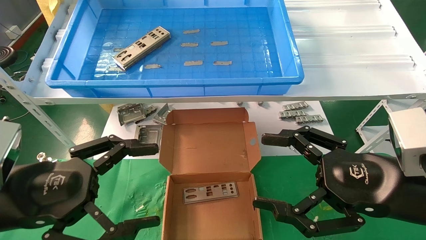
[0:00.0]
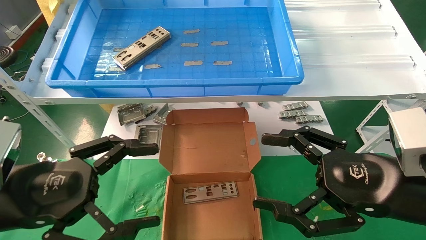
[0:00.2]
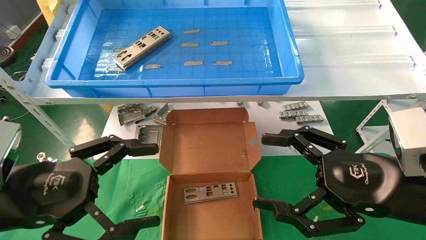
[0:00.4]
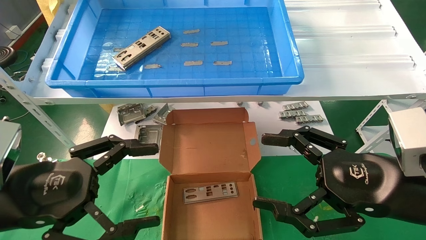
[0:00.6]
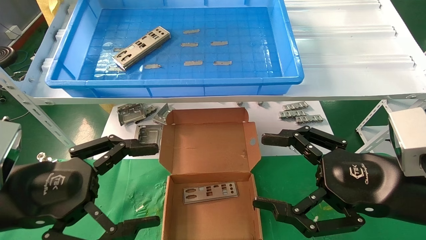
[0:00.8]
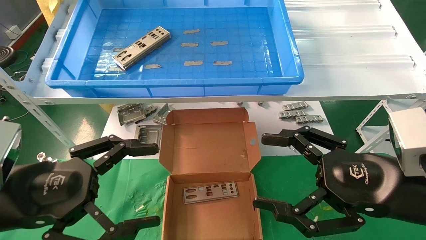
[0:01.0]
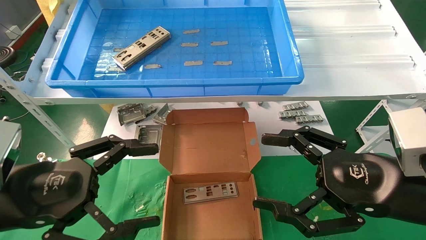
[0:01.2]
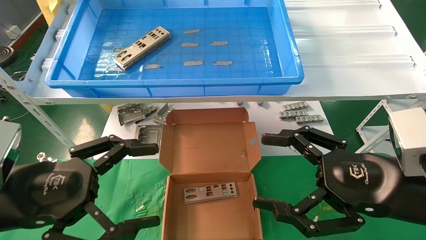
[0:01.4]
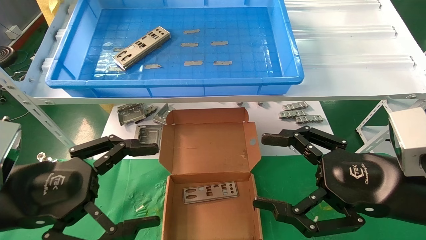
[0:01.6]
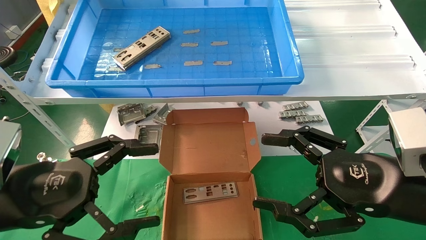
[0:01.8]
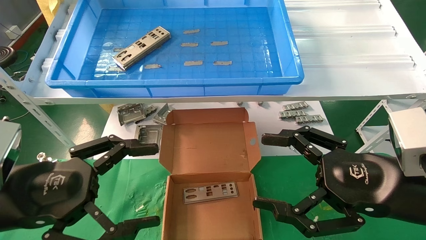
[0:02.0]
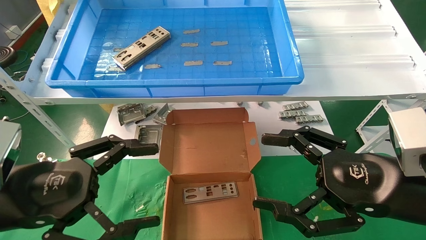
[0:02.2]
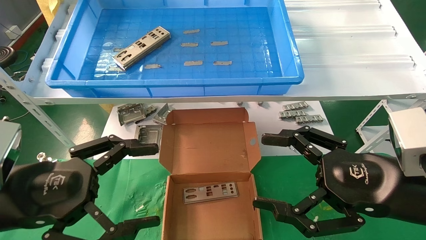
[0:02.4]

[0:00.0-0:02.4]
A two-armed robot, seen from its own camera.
Task of the whole recording: pick up the parts on the tray and put them in the cardboard box.
0:00.0 to 0:02.4: The two grippers keep their place.

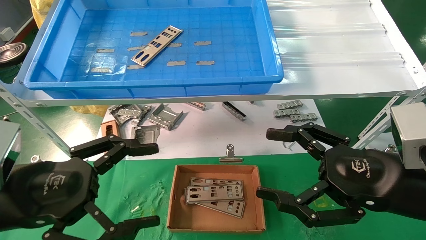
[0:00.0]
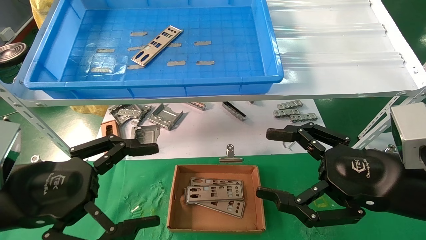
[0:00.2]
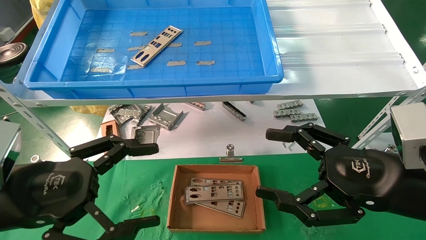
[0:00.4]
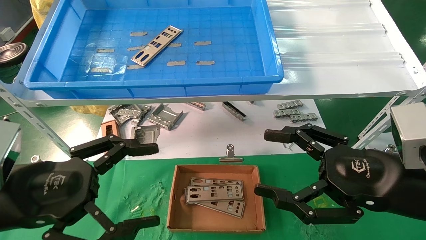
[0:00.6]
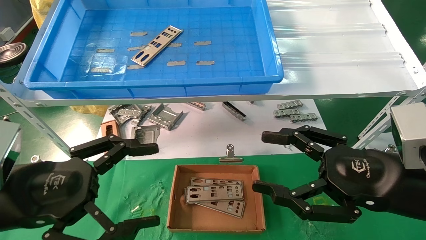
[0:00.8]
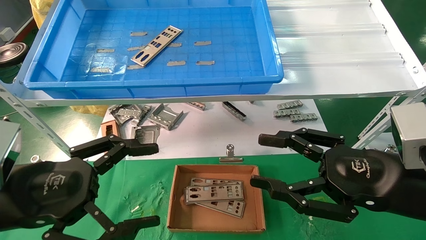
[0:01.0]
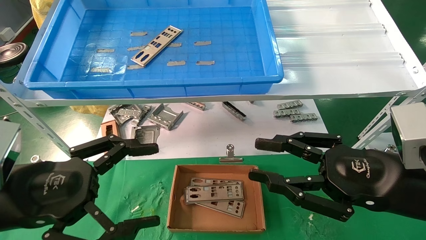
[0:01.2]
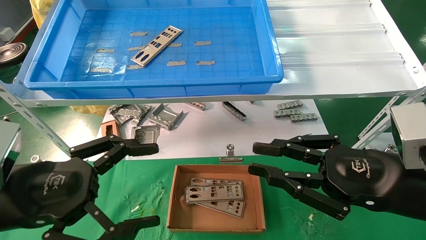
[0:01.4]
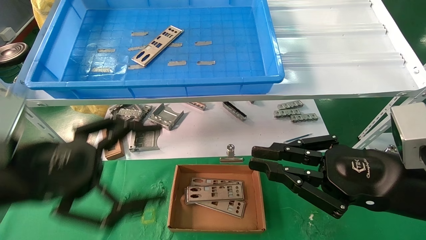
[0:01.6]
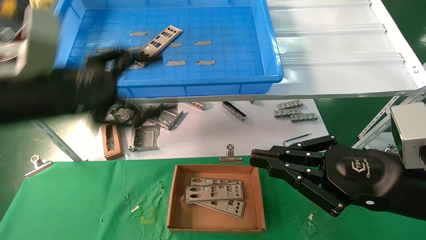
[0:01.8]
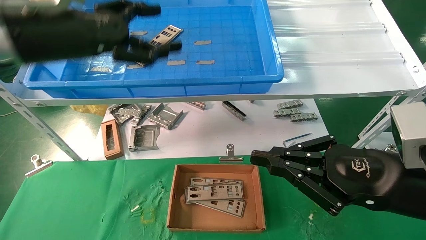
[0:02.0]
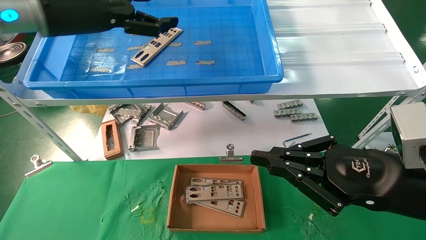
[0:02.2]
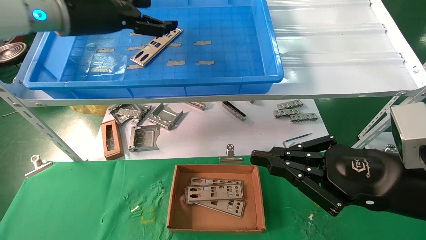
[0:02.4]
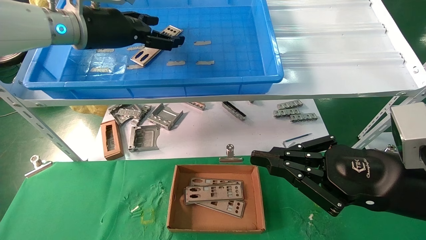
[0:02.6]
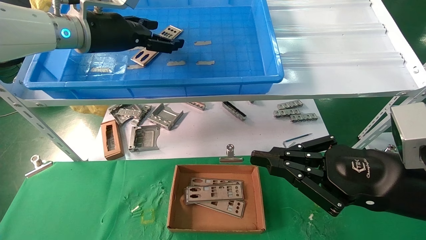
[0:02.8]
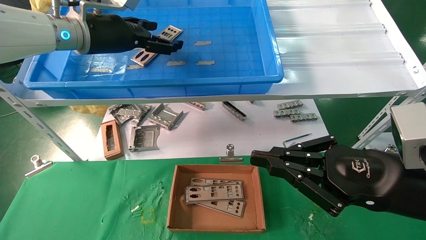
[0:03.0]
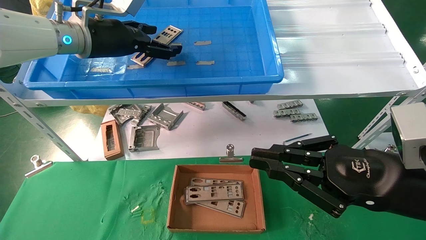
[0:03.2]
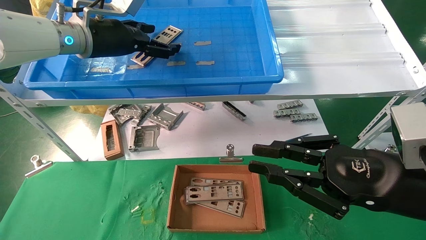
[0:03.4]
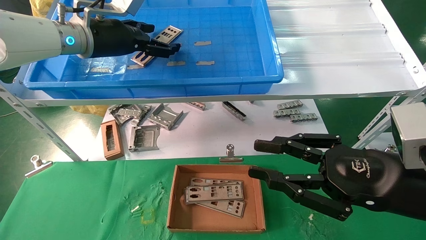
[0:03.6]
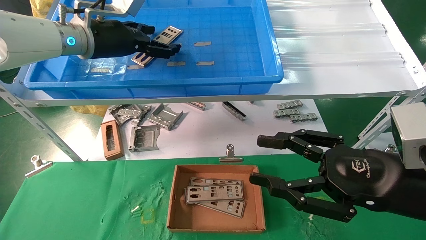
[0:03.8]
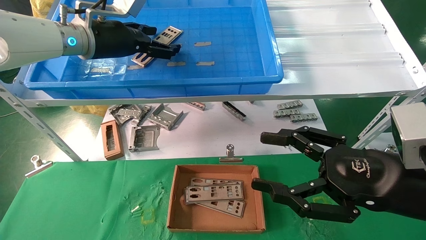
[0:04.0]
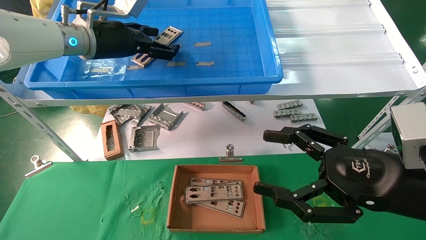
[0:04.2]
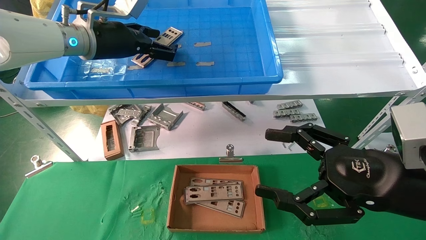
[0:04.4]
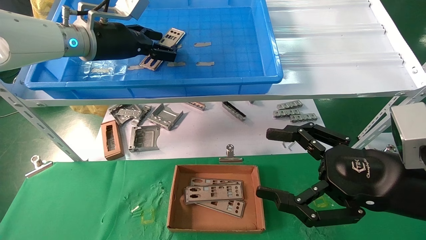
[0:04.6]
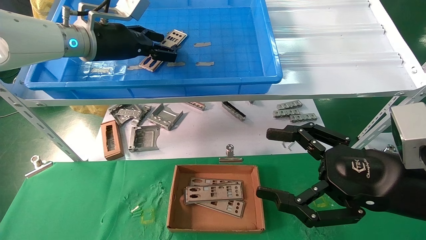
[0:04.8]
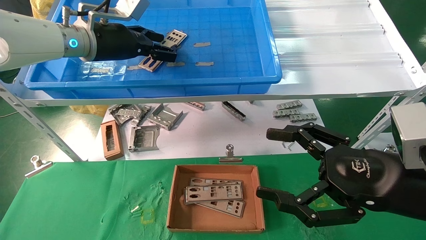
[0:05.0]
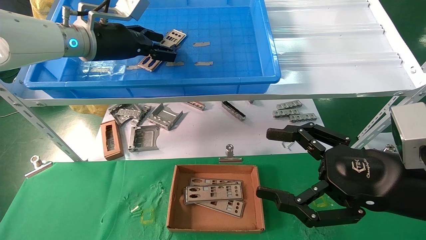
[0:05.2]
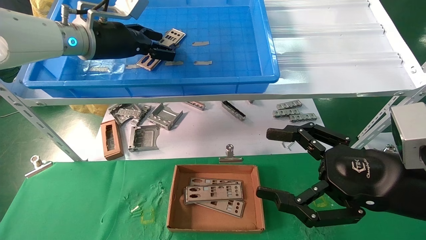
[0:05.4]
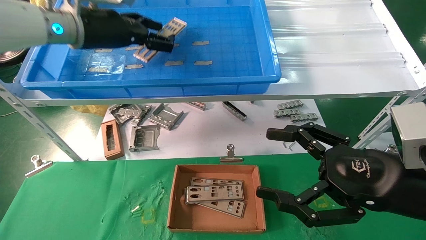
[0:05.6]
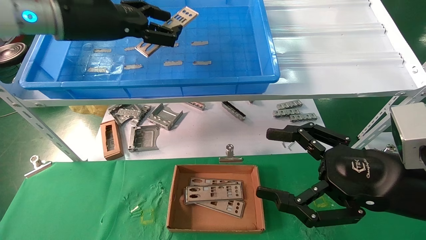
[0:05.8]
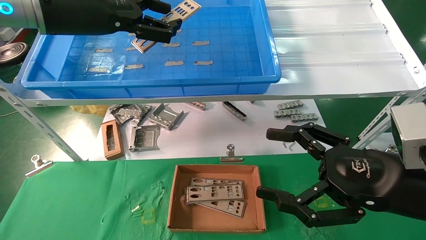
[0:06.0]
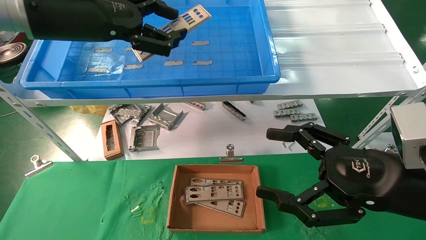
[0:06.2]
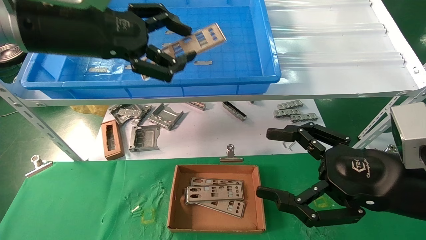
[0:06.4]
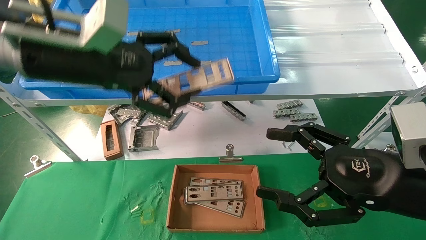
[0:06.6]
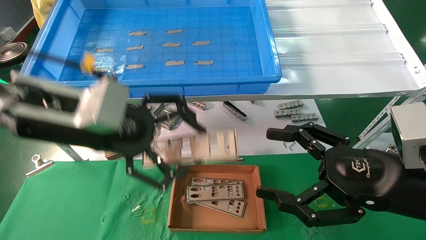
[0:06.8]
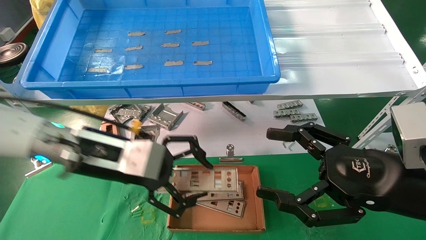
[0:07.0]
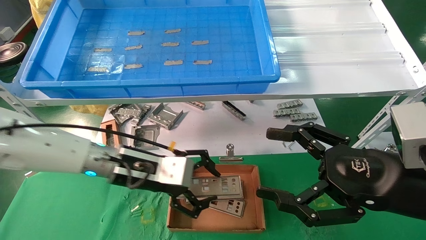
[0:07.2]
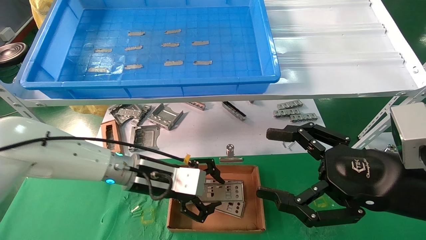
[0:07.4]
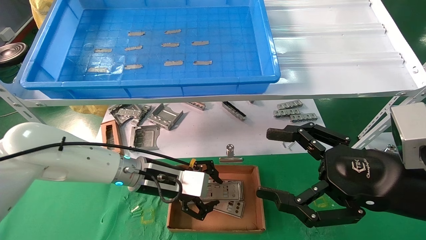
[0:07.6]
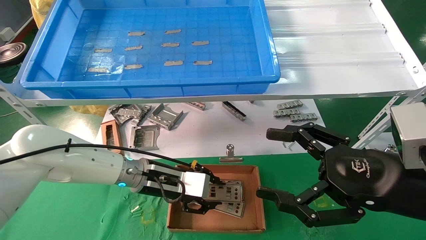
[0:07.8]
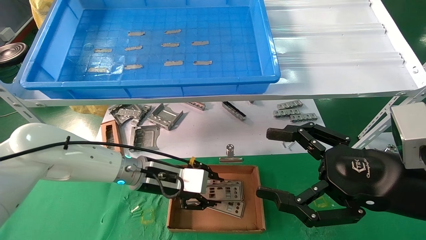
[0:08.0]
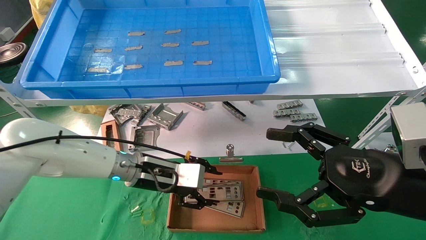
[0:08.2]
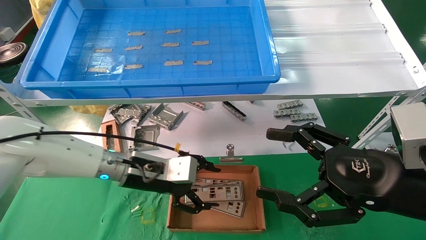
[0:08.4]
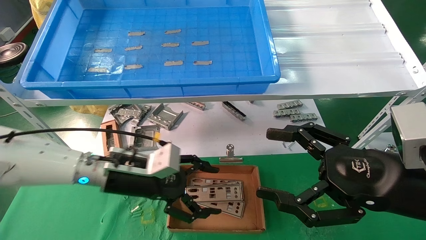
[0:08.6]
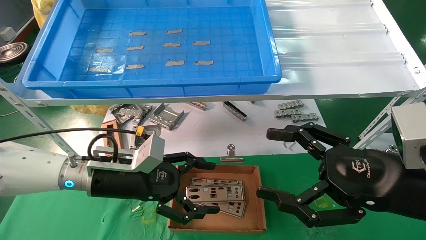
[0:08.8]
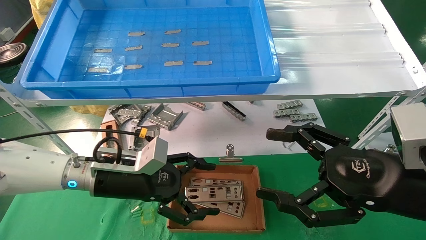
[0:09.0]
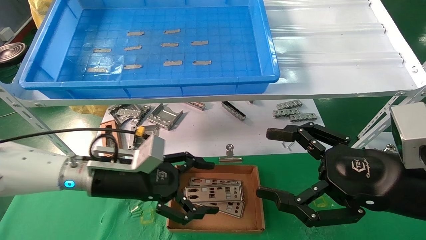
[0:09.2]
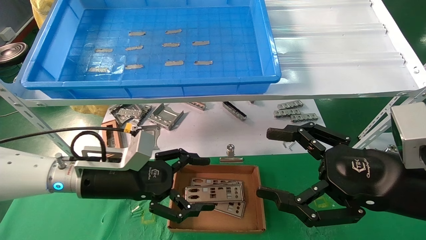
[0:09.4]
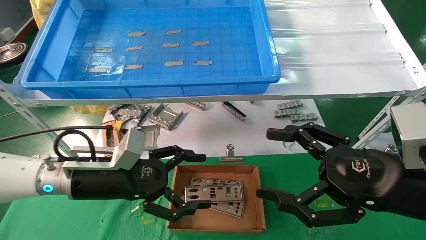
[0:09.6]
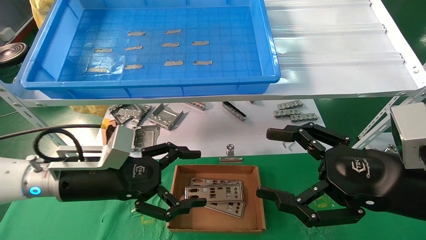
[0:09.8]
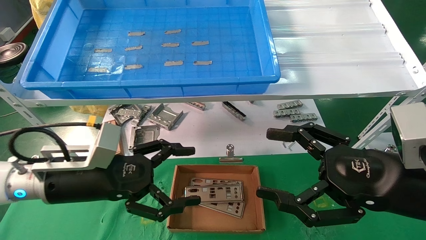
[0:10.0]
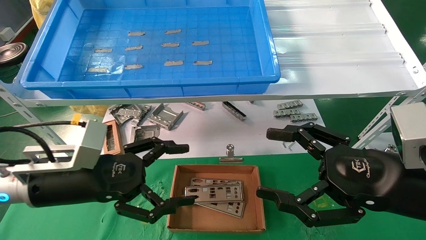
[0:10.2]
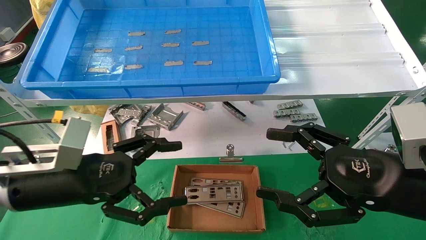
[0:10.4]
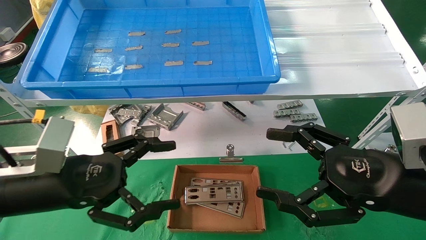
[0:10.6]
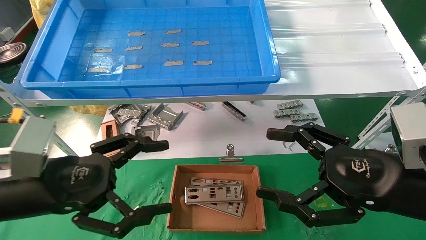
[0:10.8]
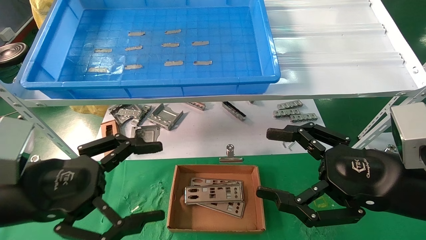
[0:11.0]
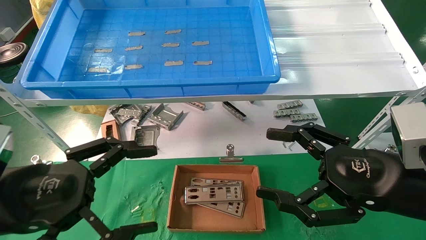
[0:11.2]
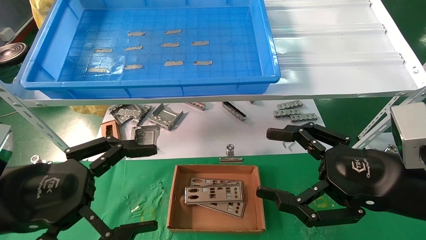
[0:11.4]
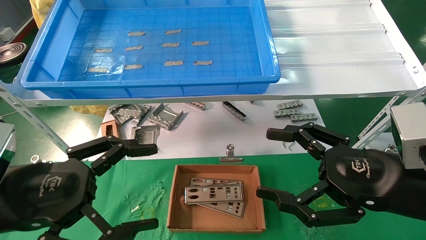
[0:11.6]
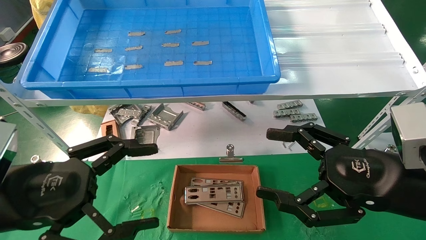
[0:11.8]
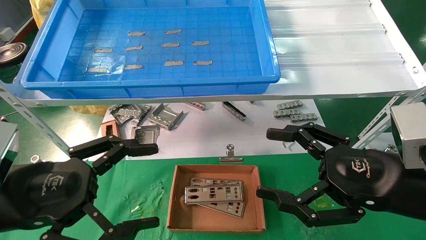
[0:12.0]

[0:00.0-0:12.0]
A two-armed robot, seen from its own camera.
Task of the whole recording: pick up the parts on the tray and put them in the cardboard box.
Step, 0:01.8 to 0:04.8: Pick up the IO bracket from the container box.
Step, 0:05.0 to 0:08.0: Place the IO bracket into the ingredient slot.
0:00.0 to 0:01.6: The left gripper shifts approximately 5 cm upward; the right gripper closes up.
0:01.6 to 0:03.0: The left gripper heads forward and upward, covering approximately 25 cm.
0:03.0 to 0:04.4: The right gripper opens its fingers.
0:04.4 to 0:06.0: The left gripper is displaced backward by roughly 10 cm, and closes its fingers.
0:06.0 to 0:07.6: The left gripper moves downward, approximately 30 cm.
0:07.6 to 0:09.0: The left gripper goes about 5 cm to the left, and opens up.
0:09.0 to 0:10.4: The left gripper shifts some 10 cm backward and to the left.
0:10.4 to 0:12.0: The left gripper heads backward, covering approximately 5 cm.

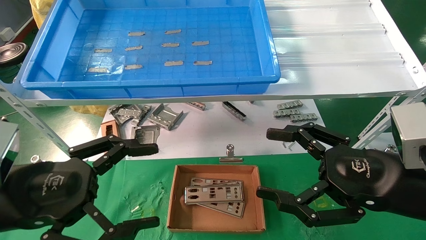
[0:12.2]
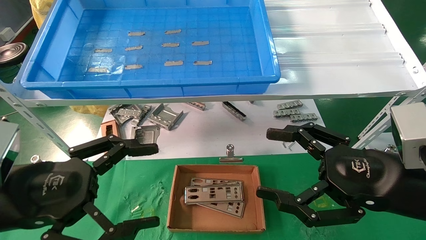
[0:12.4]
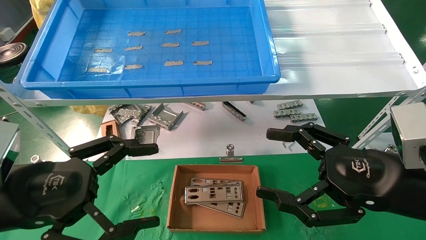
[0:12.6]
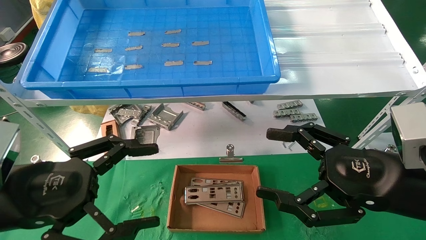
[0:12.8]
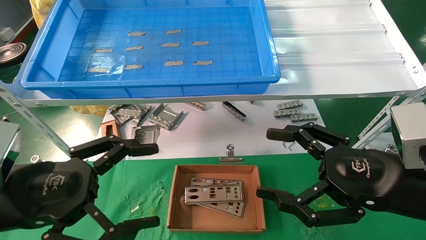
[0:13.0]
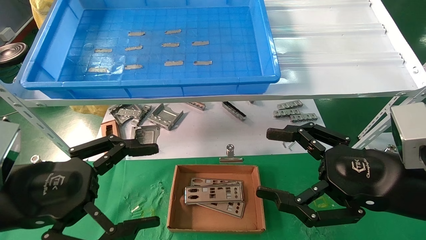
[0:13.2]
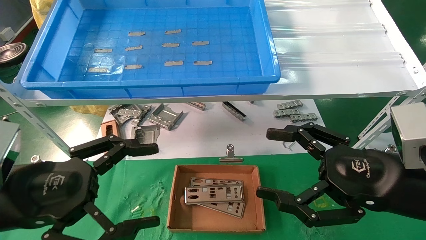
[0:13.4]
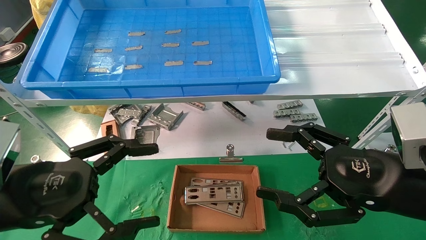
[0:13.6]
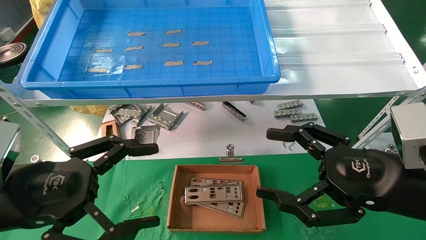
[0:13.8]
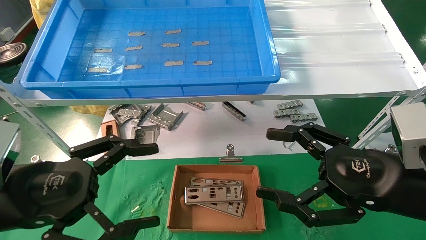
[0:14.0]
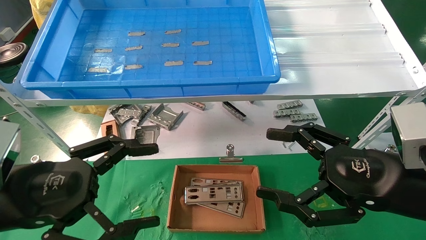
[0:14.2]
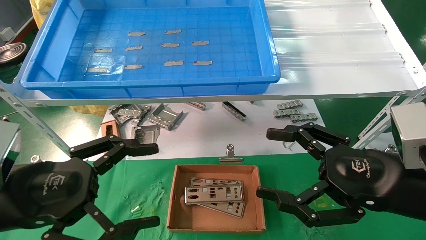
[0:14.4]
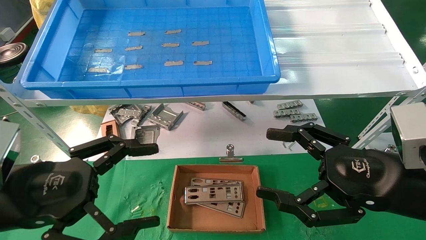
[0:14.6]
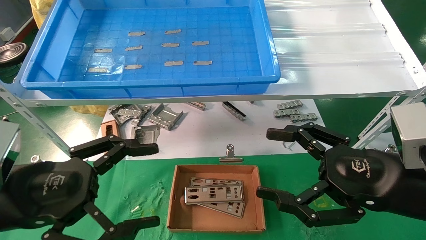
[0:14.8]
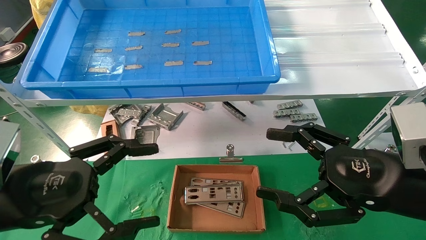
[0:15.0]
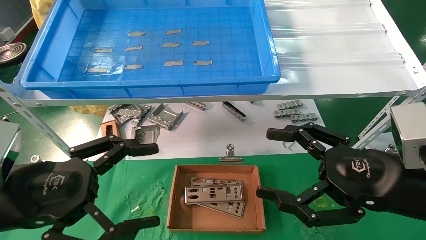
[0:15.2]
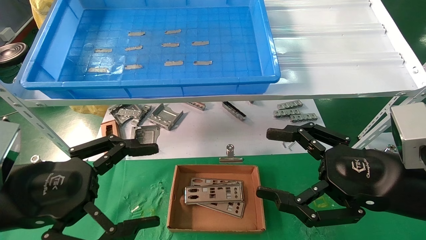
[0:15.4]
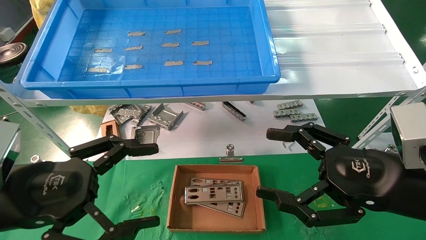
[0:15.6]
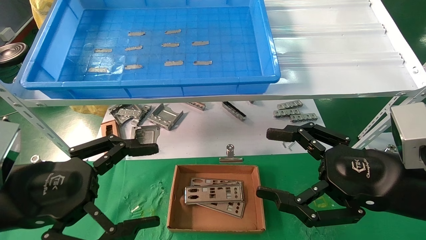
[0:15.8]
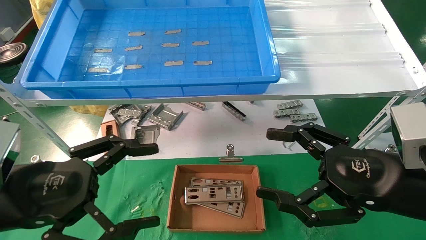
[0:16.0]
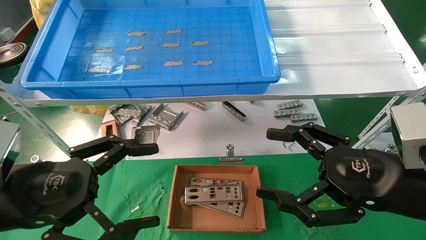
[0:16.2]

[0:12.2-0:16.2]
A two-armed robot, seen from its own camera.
Task of the whole recording: pick up the parts on the tray and put them in the cardboard box.
0:12.2 to 0:16.2: Both grippers stay about where they are.
